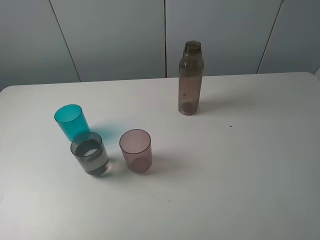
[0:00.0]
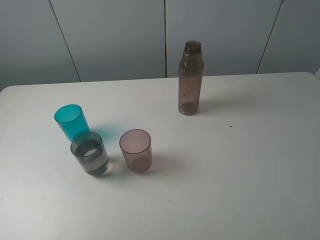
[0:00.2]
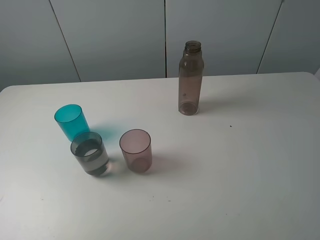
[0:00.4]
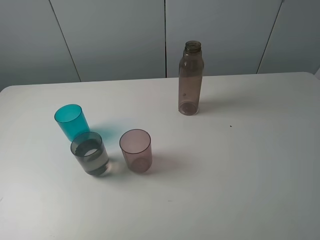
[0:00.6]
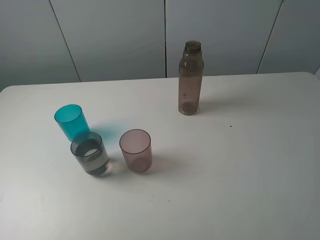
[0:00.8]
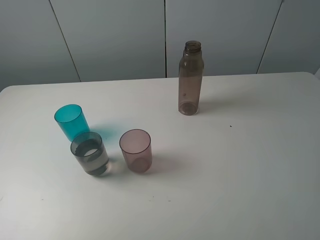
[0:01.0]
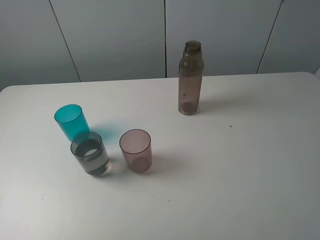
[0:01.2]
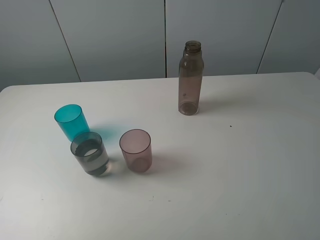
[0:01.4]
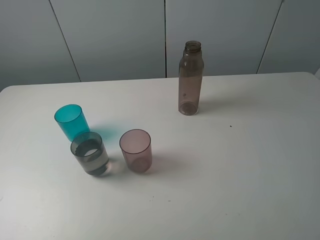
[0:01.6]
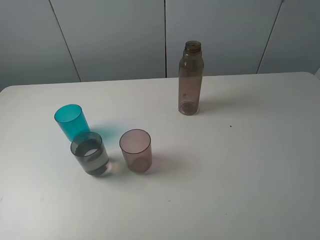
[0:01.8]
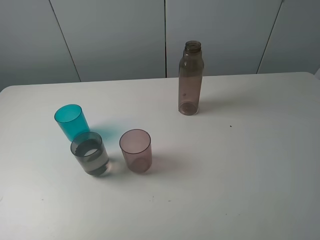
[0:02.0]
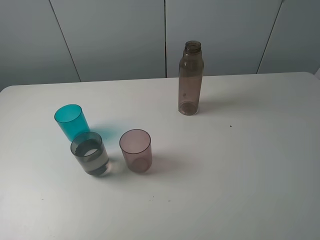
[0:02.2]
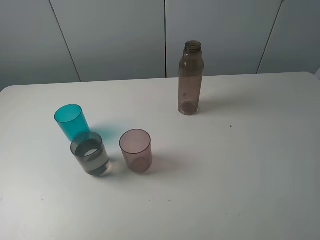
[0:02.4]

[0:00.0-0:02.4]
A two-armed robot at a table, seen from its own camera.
Task of the whole recording: pick up the bottle filled with water and pour water into the middle cup of the three cups.
0:00.0 to 0:02.4: Both grippers stay about where they are.
